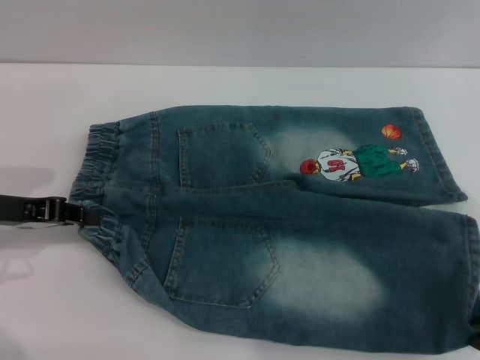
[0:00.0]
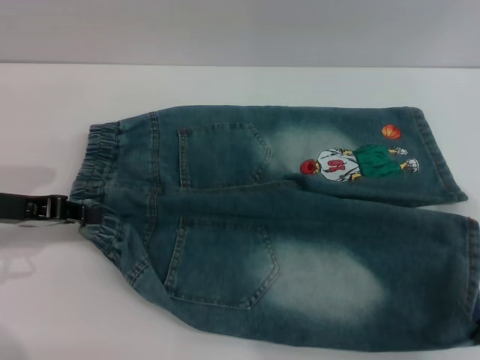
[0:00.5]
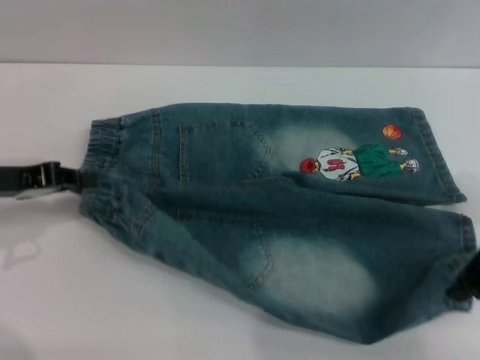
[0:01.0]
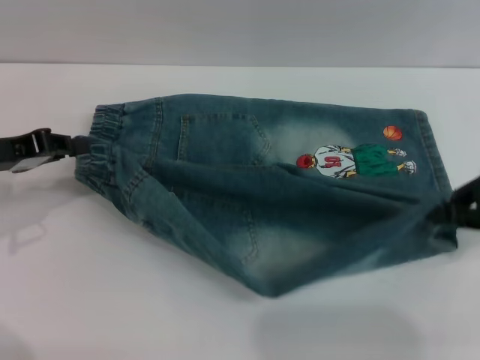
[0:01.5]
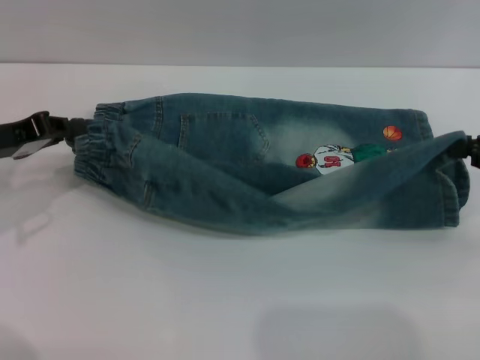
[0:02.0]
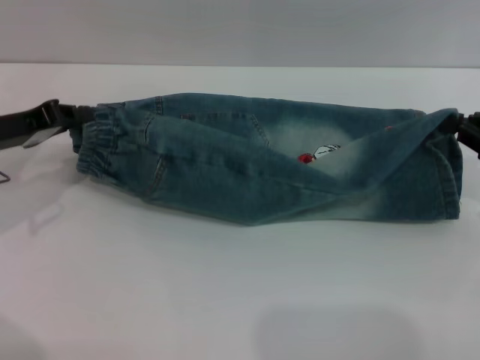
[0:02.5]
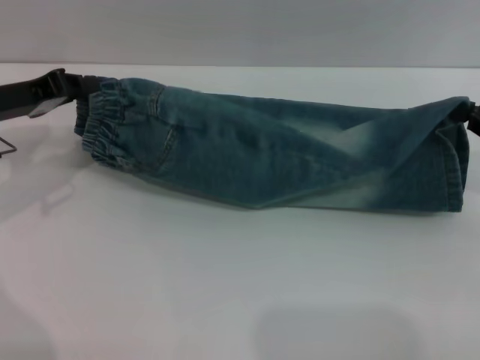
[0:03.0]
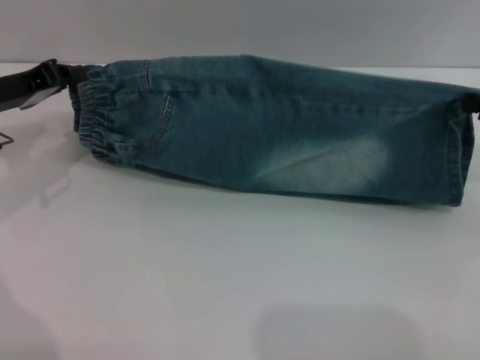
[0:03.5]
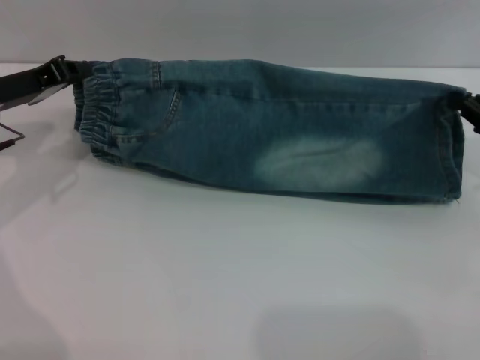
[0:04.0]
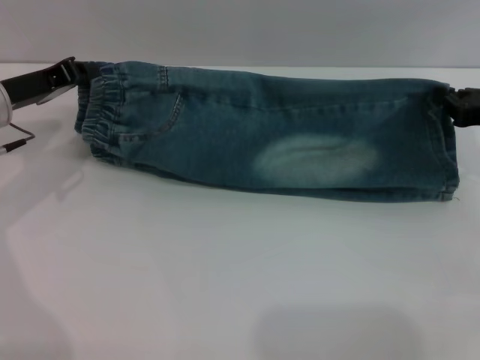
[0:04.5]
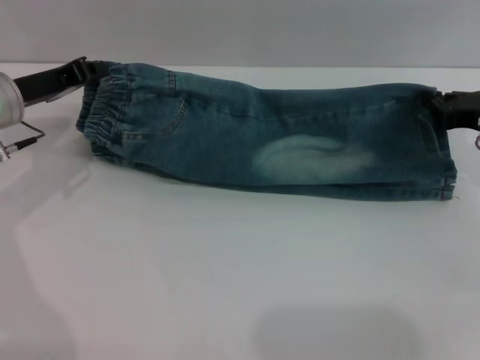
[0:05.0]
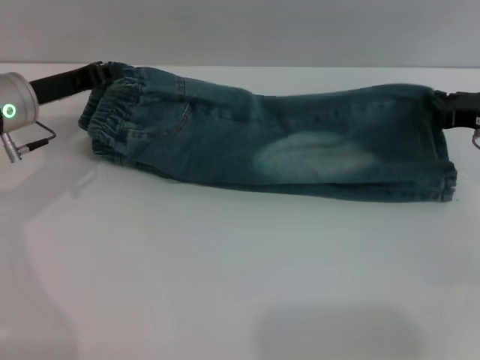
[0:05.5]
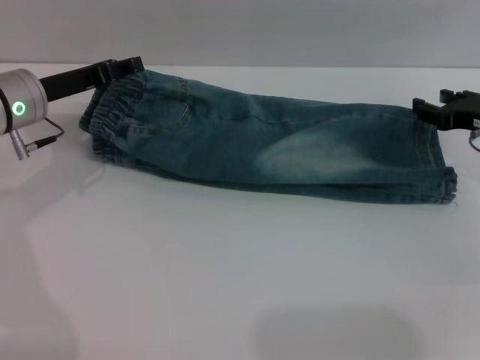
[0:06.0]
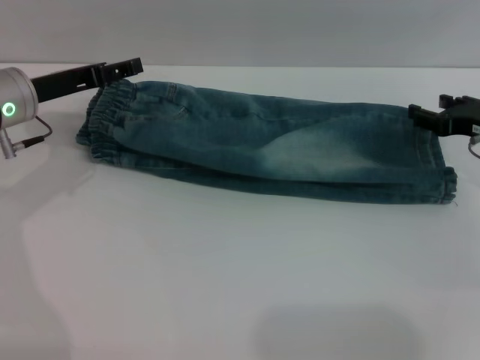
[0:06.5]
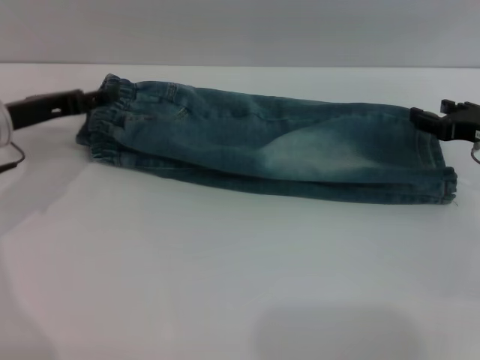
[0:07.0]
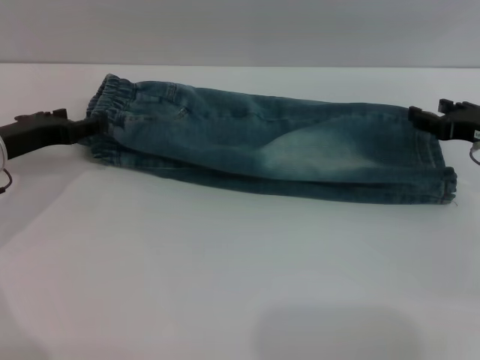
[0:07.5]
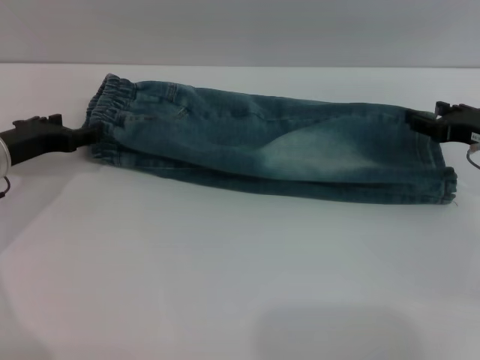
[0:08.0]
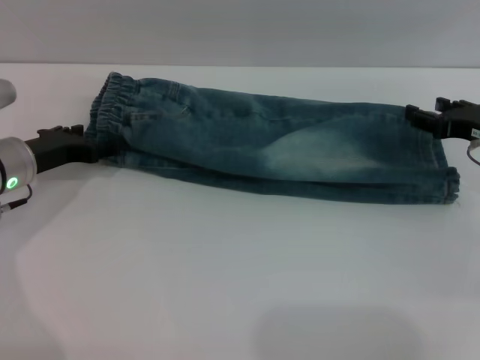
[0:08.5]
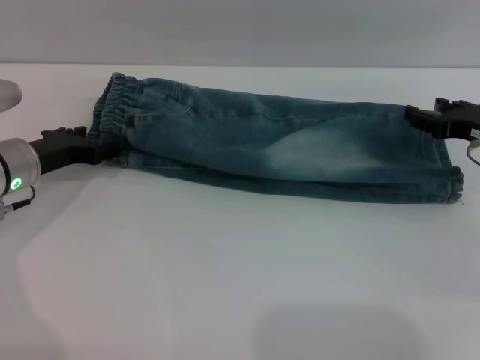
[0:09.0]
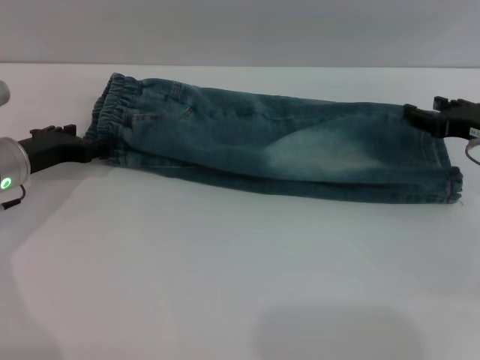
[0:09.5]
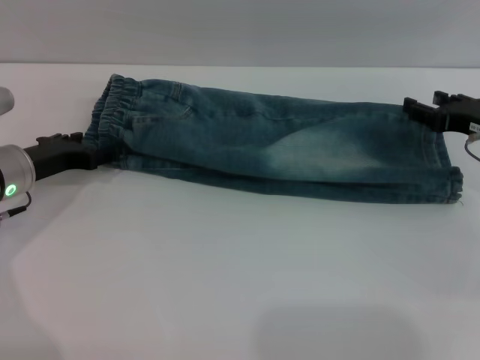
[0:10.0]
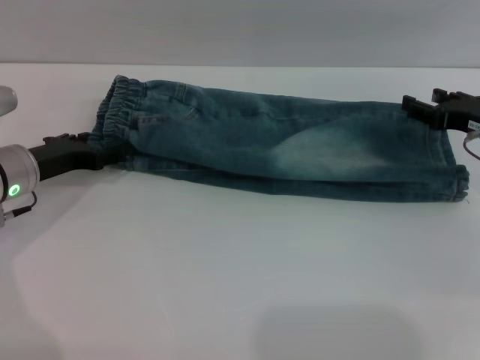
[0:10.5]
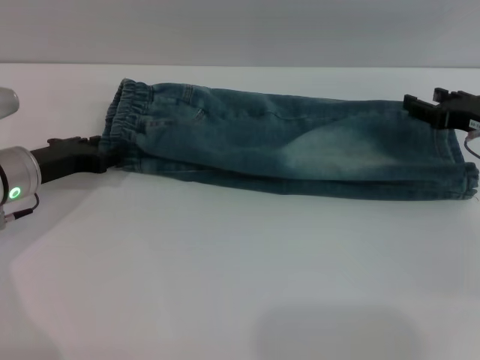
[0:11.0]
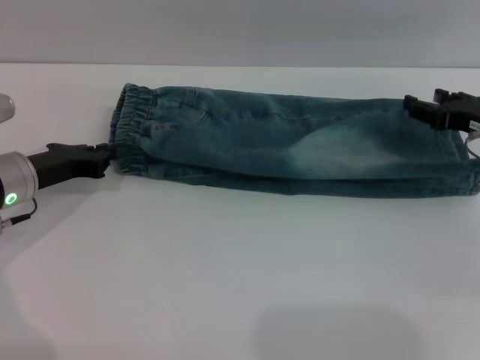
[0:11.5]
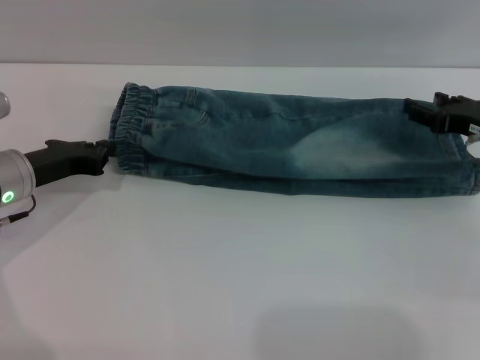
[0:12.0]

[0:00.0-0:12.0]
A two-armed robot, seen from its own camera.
Step, 0:00.0 to 0:07.0: Fold the bottom of the pants upward with both grippers.
0:00.0 to 0:02.0: The right gripper shifts some 5 cm to the right, and closes its fingers.
0:02.0 to 0:04.0: The right gripper ends up approximately 5 cm from where it was. Meanwhile the left gripper changes place by some 5 cm.
0:04.0 to 0:06.0: The right gripper ends up approximately 5 cm from where it was, and opens; the left gripper opens its fingers.
0:06.0 to 0:08.0: The right gripper opens; the left gripper shifts by roughly 5 cm, and opens.
0:08.0 to 0:10.0: There are only small adjustments of the grippers.
0:10.0 to 0:12.0: The left gripper closes its fingers.

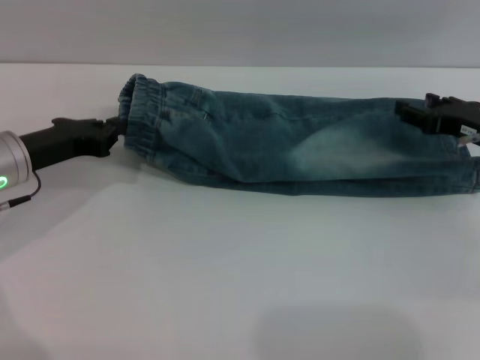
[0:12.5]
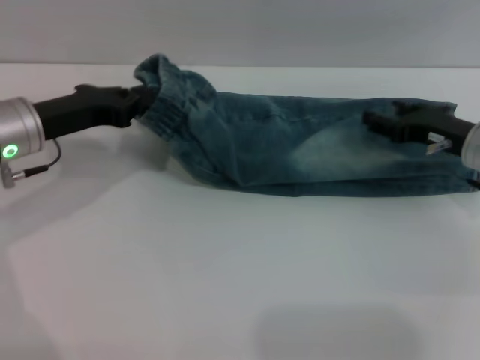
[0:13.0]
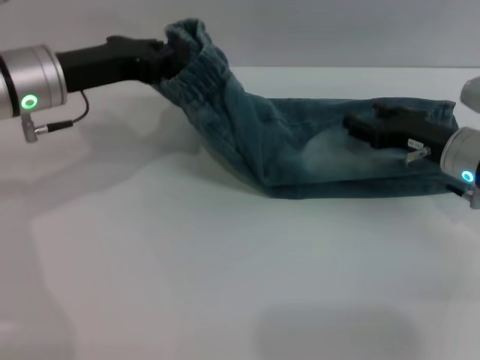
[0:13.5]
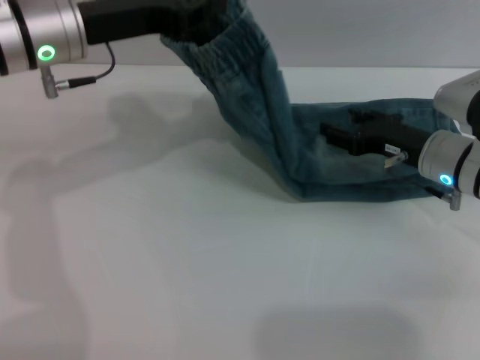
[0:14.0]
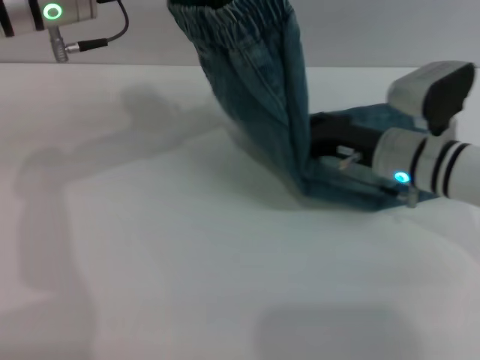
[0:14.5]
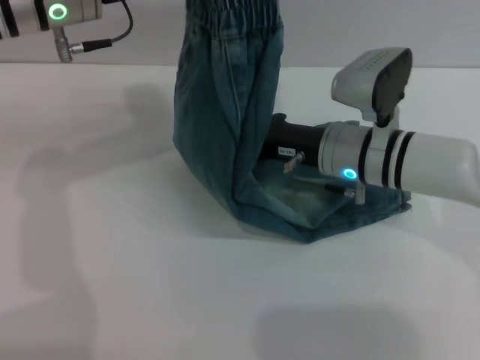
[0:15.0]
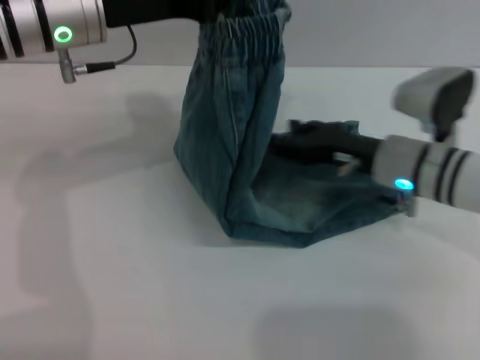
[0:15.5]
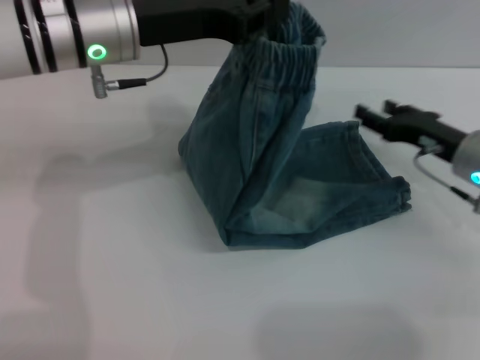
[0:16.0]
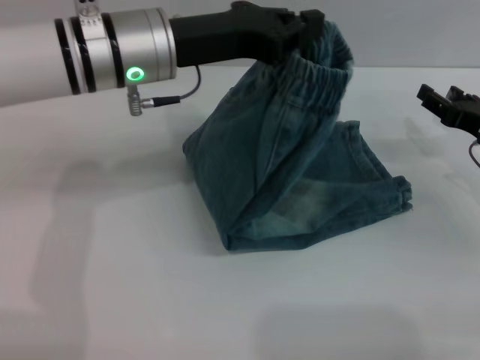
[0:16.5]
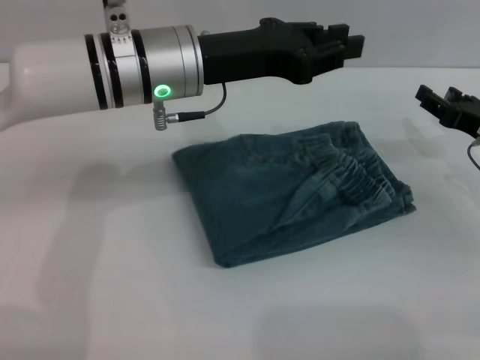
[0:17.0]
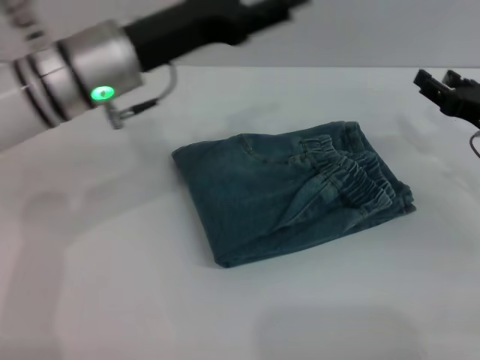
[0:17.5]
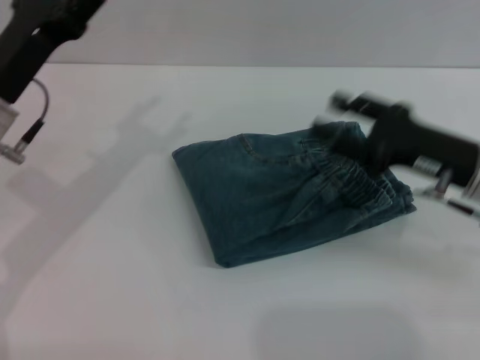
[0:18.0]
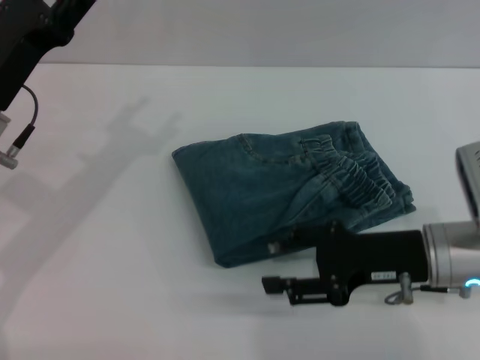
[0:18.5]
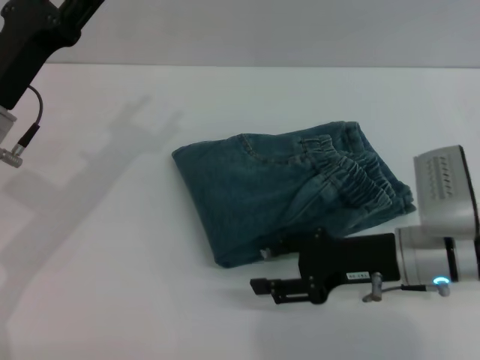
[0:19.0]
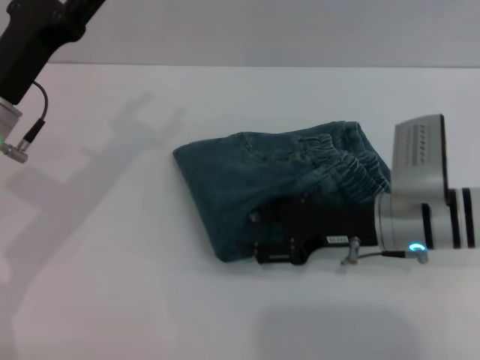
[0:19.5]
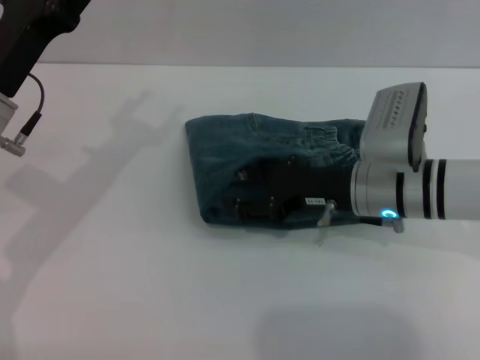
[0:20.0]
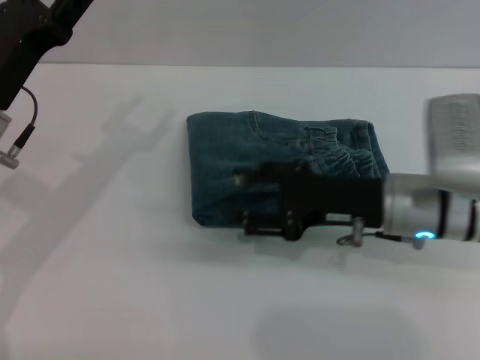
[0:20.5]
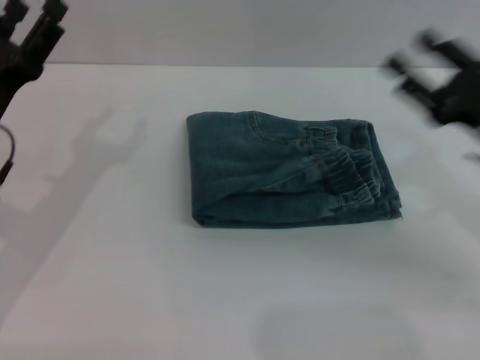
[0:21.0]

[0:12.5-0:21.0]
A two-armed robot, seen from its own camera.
Step, 0:12.5 to 0:17.0: Fold the pants from left to right with the left gripper.
0:12.5 to 0:14.5: The right gripper heads to the left, covering roughly 10 cm. The left gripper travels upward and to the right by some 15 cm.
0:14.5 to 0:16.5: The right gripper goes some 15 cm to the right. Meanwhile the left gripper moves to the right, some 5 cm.
0:16.5 to 0:19.0: The left gripper shifts approximately 15 cm to the left, downward and backward, and opens its fingers, while the right gripper is displaced to the left and backward by about 15 cm.
0:19.0 to 0:21.0: The right gripper goes approximately 10 cm to the right and upward.

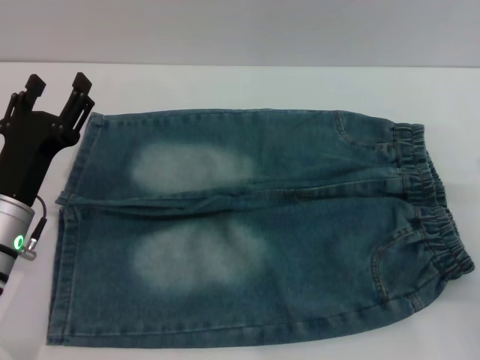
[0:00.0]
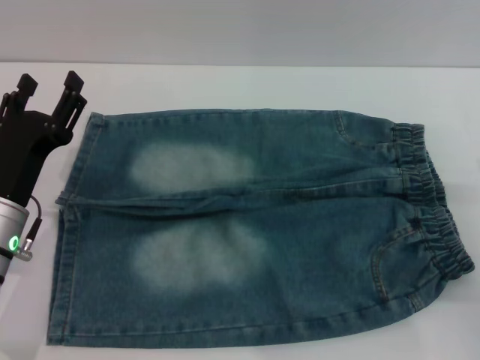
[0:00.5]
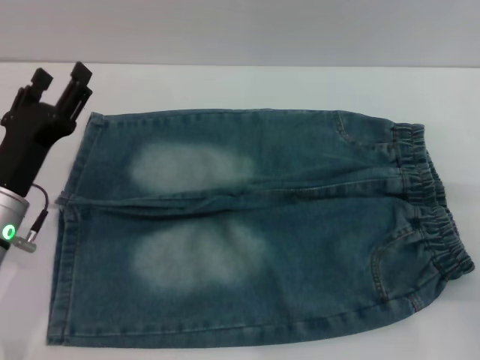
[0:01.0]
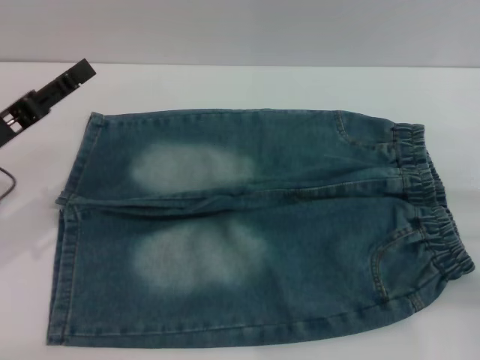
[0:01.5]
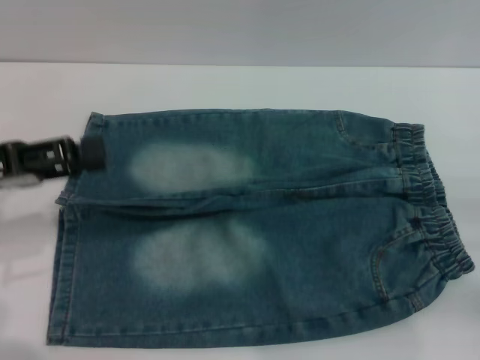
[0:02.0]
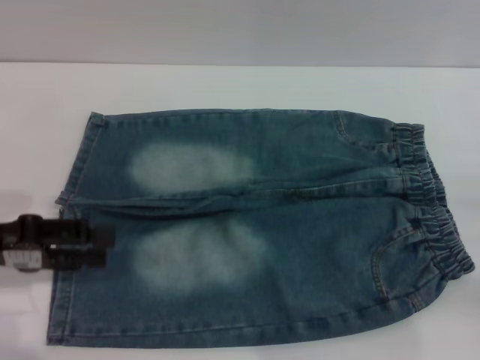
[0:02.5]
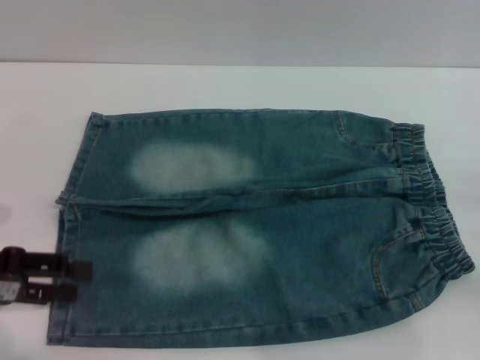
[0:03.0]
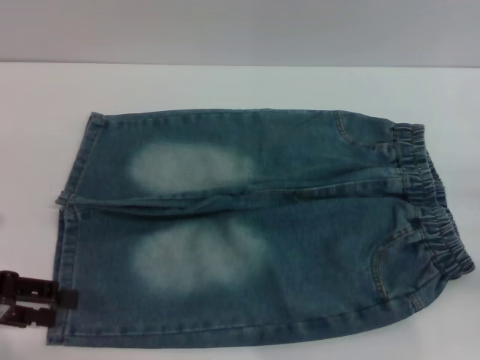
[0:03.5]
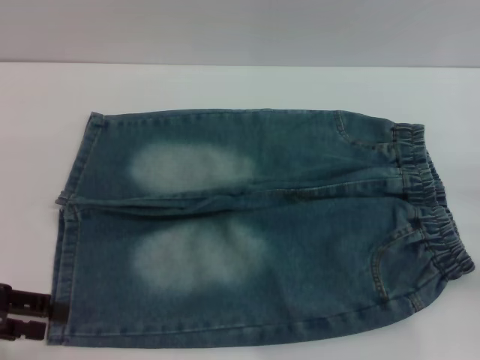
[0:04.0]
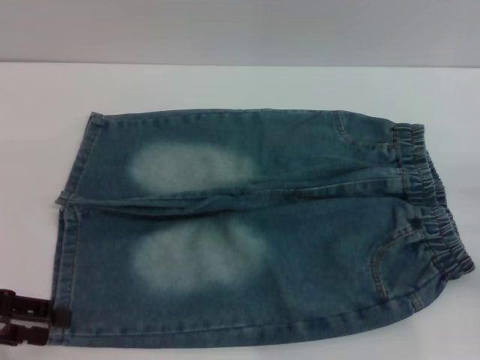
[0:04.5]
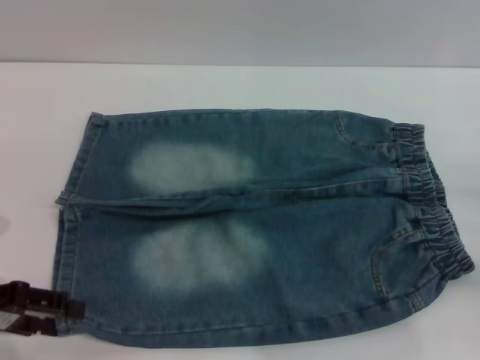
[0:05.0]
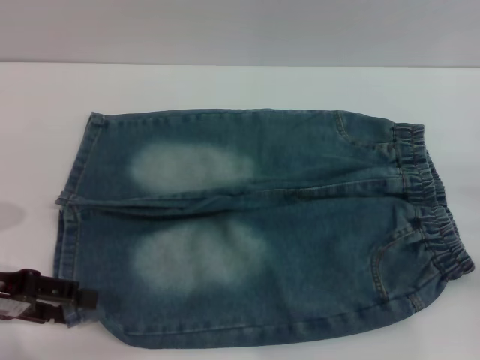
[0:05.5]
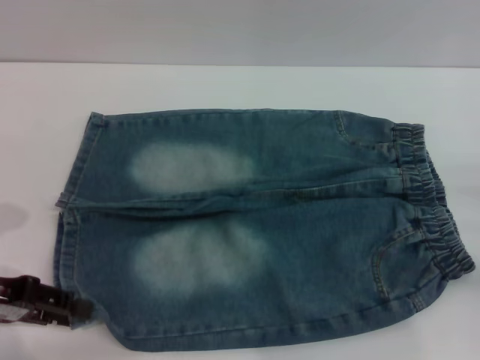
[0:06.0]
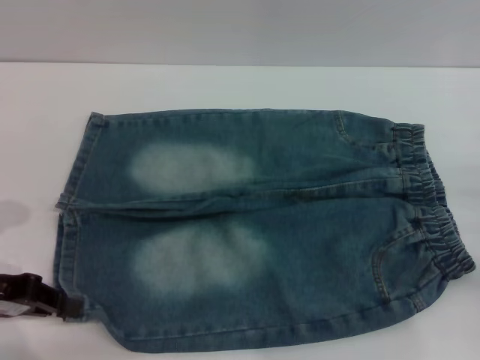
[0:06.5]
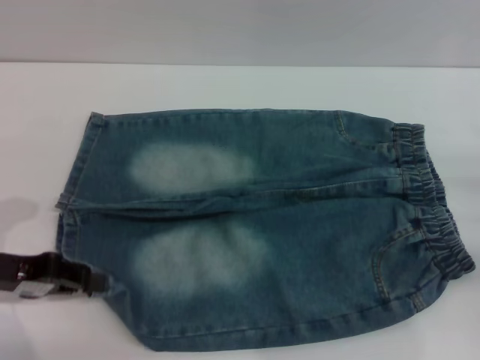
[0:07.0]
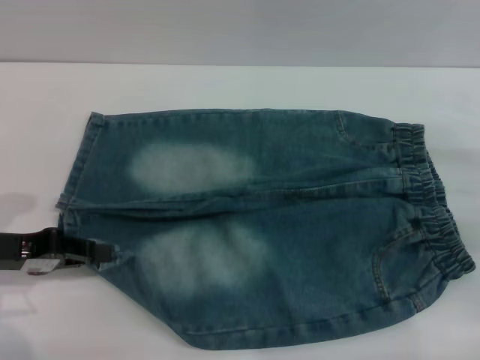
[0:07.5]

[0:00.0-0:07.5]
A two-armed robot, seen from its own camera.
0:00.0 to 0:02.0: The left gripper travels upward and to the left by some 15 cm.
0:02.0 to 0:04.0: The left gripper moves approximately 5 cm.
0:04.0 to 0:05.5: The grippers stay close to where they were, moving slightly.
0:05.5 to 0:07.5: The right gripper goes some 5 cm forward; the left gripper closes up.
